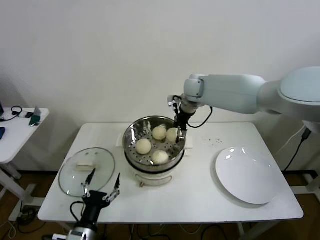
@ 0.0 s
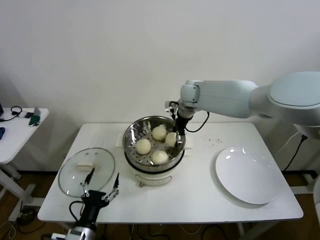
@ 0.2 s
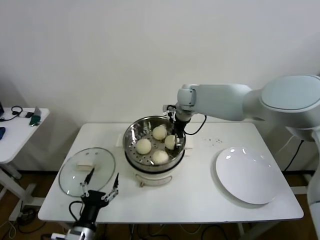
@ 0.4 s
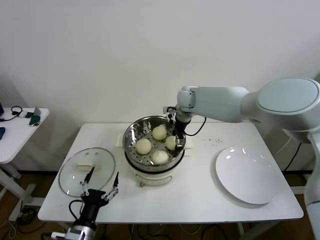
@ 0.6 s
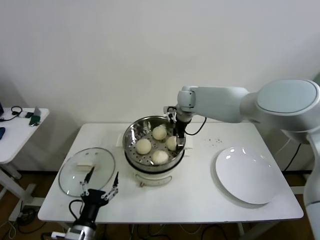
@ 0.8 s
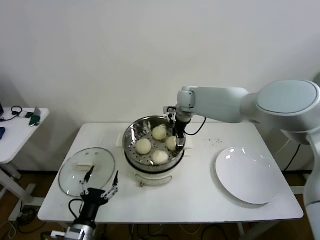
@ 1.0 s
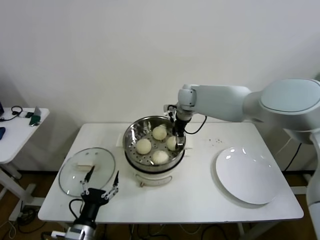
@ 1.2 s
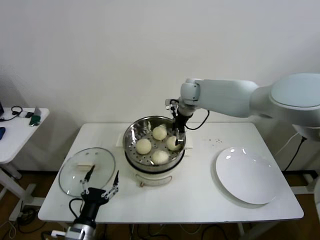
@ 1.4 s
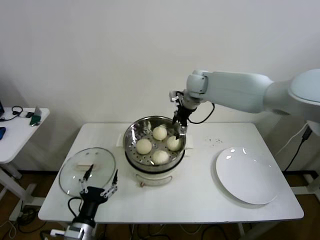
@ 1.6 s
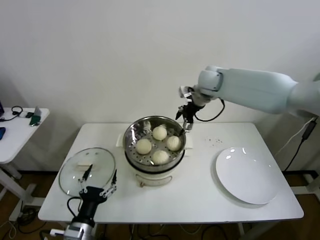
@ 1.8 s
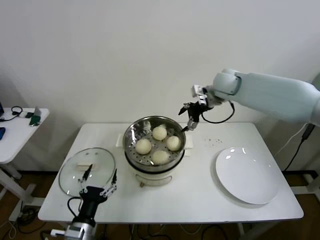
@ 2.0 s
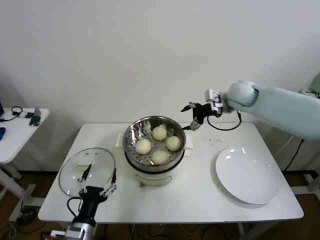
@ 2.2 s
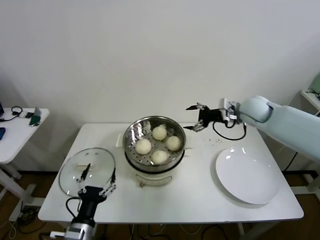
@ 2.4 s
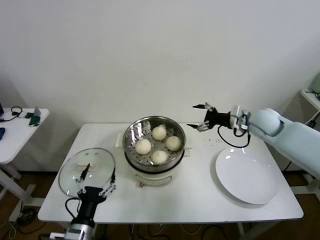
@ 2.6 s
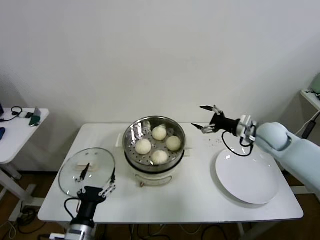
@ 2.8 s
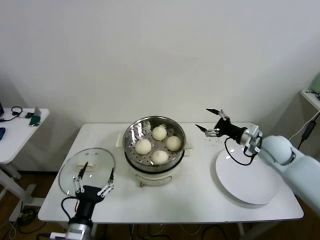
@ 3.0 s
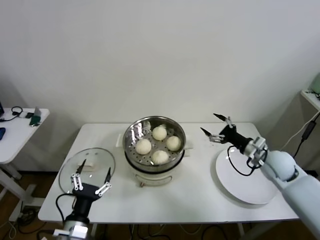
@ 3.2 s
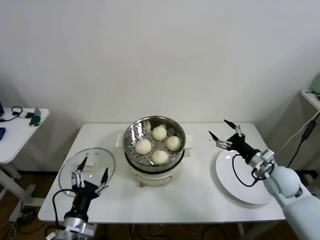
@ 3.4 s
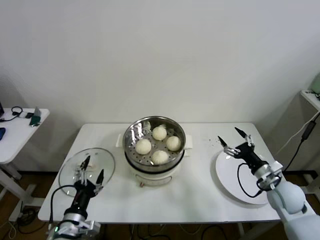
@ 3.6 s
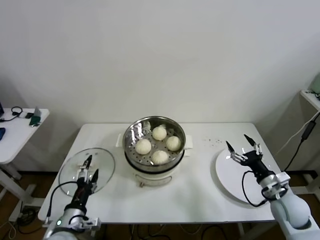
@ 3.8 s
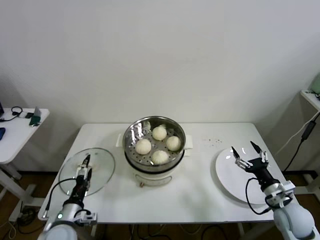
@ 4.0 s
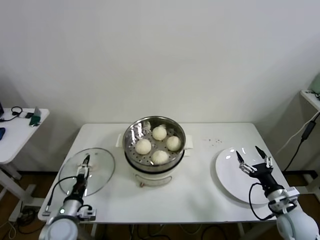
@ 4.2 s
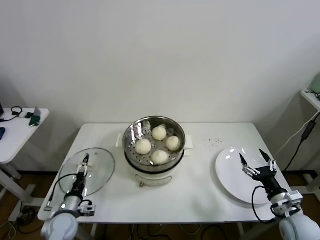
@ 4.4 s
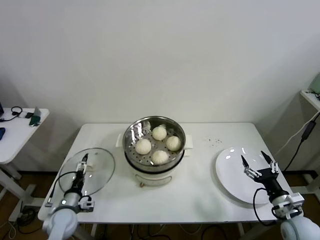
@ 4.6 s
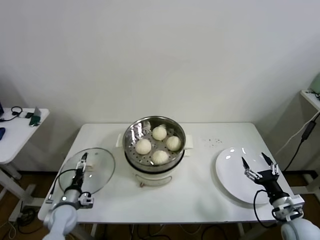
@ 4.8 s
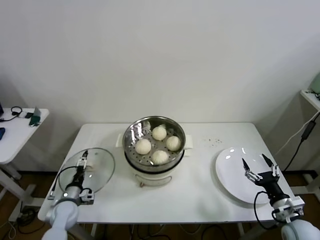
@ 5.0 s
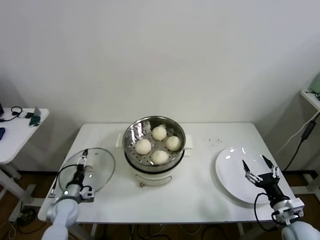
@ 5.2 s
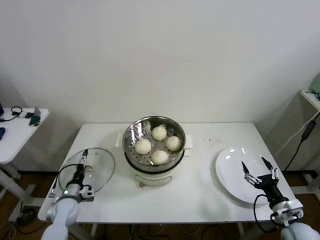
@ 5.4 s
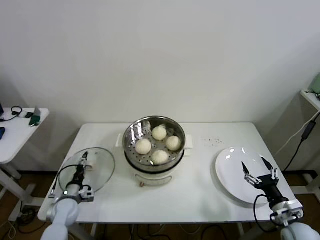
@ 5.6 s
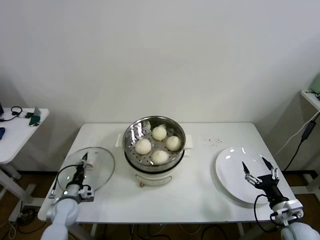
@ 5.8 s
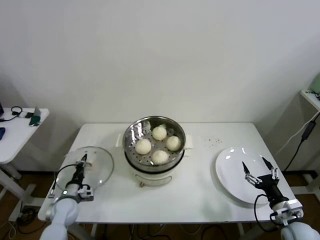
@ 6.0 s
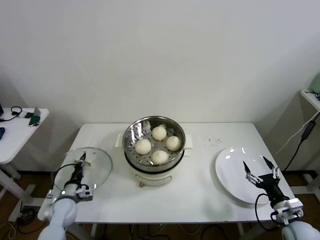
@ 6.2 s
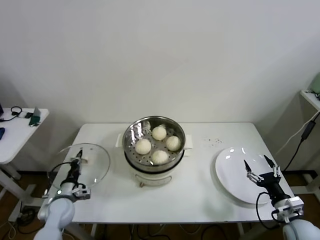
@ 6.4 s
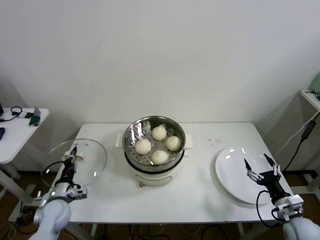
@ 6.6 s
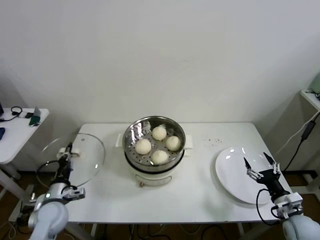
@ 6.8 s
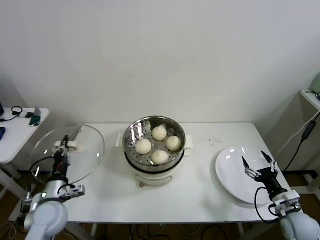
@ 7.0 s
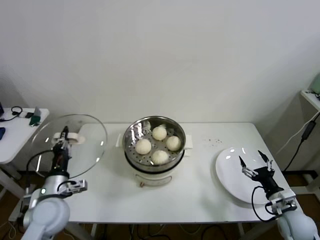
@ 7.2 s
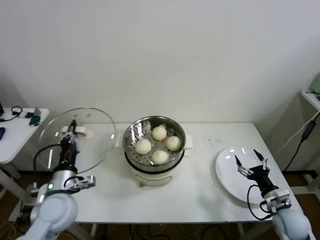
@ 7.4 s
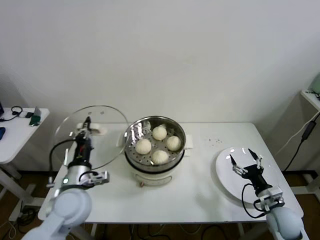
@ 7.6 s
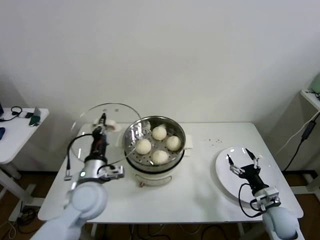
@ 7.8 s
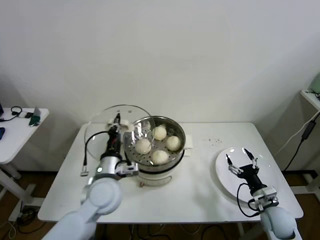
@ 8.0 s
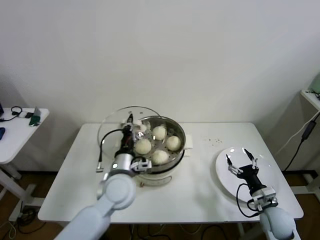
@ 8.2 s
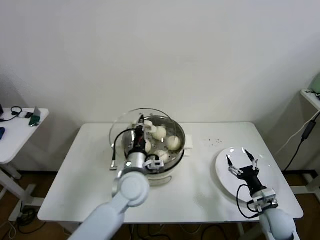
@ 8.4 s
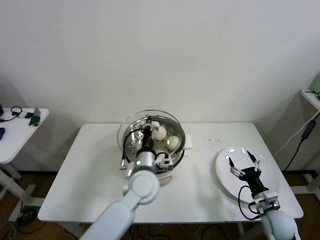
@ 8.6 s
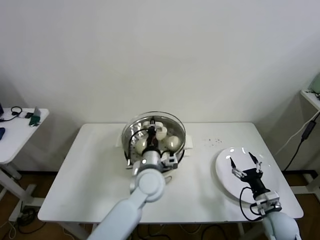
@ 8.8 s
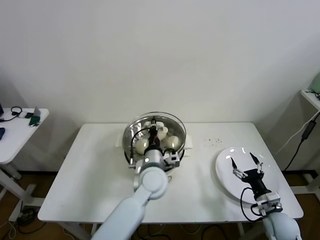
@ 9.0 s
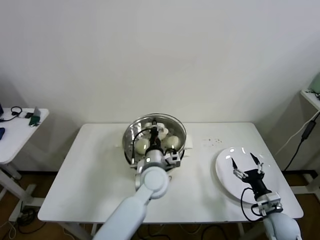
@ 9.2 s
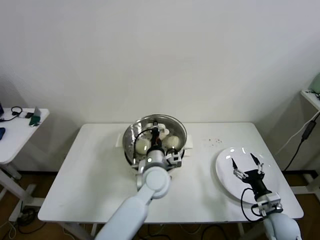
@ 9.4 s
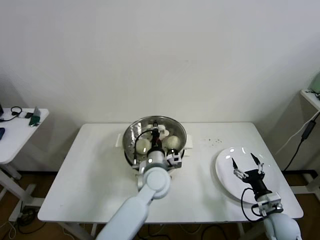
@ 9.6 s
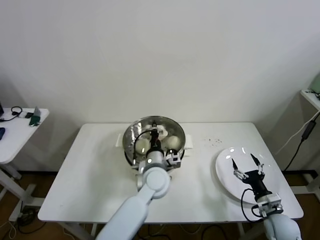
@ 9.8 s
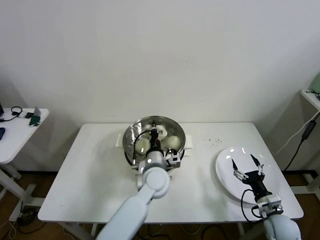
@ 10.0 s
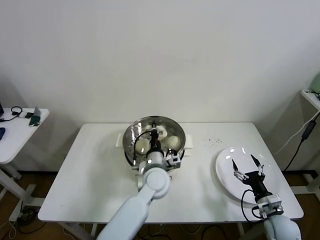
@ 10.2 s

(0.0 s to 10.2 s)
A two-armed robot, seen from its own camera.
Step, 1.0 s - 5.8 s: Grasp the pot lid with left gripper.
0.0 s - 1.4 s: The right gripper opens.
1.4 s - 3.0 s: The right gripper heads to the right, backward and downward, covering approximately 35 cm.
3.0 s - 4.4 s: The right gripper is displaced backward and downward by approximately 25 cm. Meanwhile the left gripper heads forward, to the left and downward, covering some 15 cm.
4.4 s - 5.8 s: The left gripper heads forward, covering roughly 5 cm, and closes its fingers.
5.8 s - 7.2 s: The left gripper moves upward, roughly 15 cm, and closes.
7.2 s - 8.8 s: The right gripper ends up some 5 cm from where it was. The left gripper moves to the right, about 30 cm.
8.8 s - 10.2 s: The grippers stay close to where they were, moving slightly.

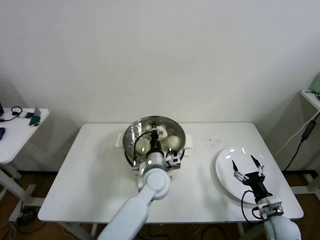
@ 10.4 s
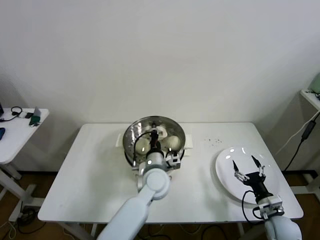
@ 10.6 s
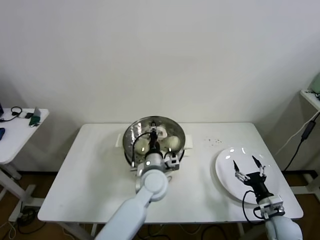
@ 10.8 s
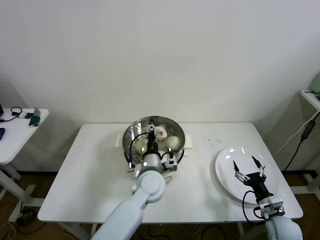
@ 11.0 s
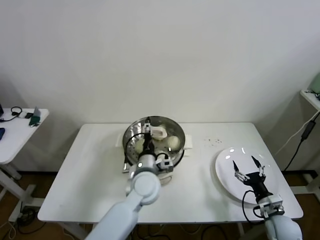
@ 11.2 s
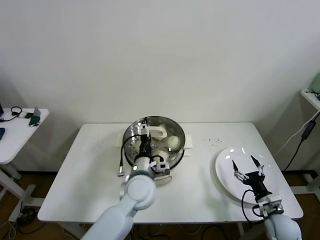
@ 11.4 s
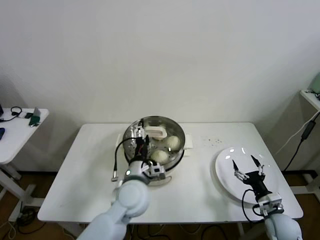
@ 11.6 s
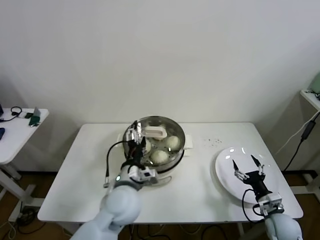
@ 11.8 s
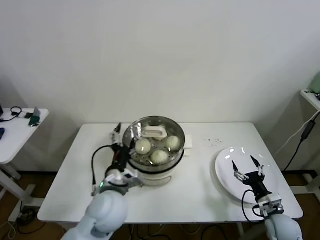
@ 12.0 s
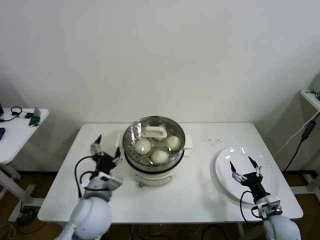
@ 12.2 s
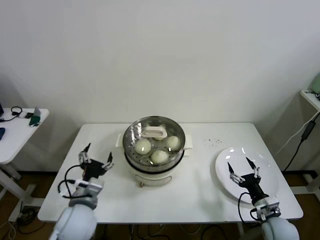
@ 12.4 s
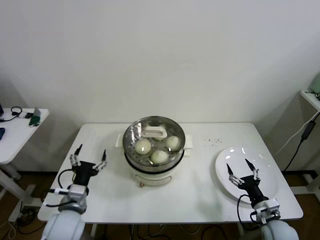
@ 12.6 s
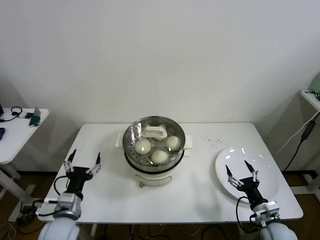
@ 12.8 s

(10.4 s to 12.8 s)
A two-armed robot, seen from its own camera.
10.4 s - 11.6 s: The left gripper travels to the left and backward by about 10 cm, and opens its fingers.
11.6 s - 12.8 s: The left gripper travels to the left and backward by some 25 cm.

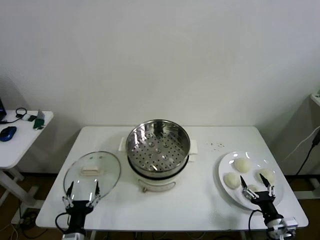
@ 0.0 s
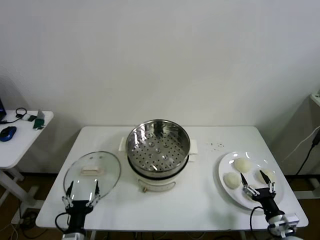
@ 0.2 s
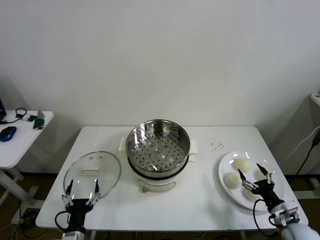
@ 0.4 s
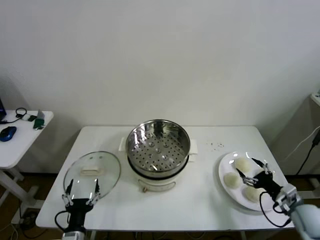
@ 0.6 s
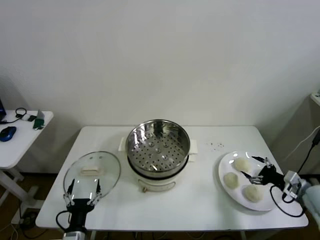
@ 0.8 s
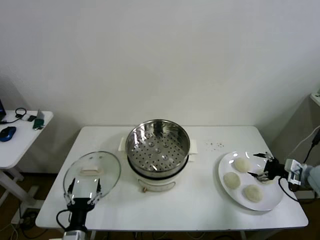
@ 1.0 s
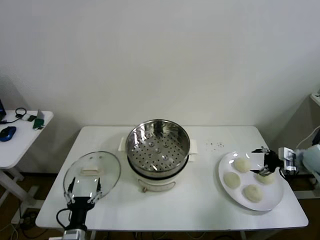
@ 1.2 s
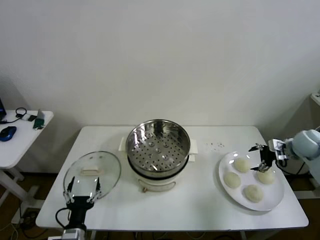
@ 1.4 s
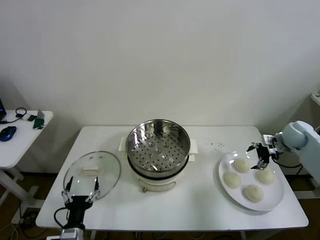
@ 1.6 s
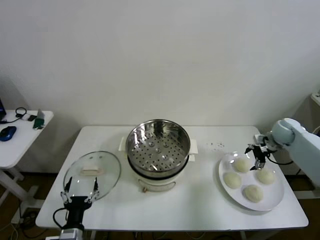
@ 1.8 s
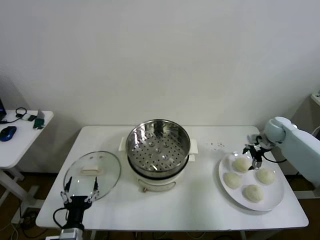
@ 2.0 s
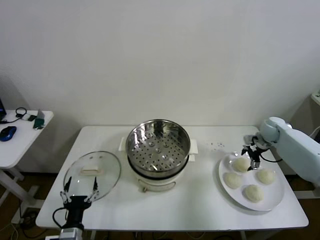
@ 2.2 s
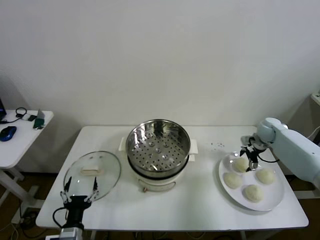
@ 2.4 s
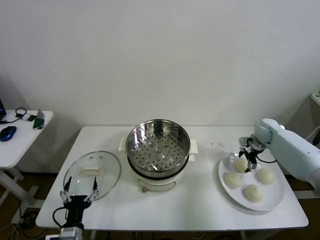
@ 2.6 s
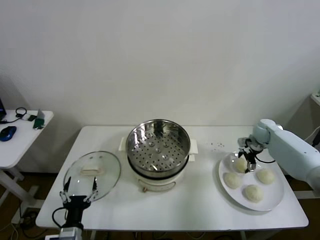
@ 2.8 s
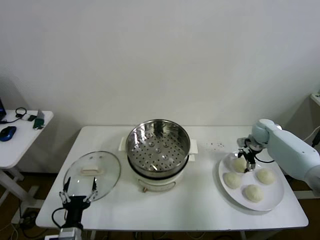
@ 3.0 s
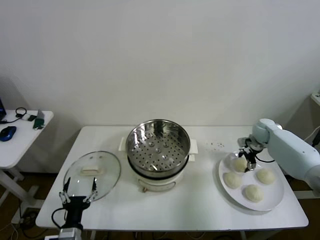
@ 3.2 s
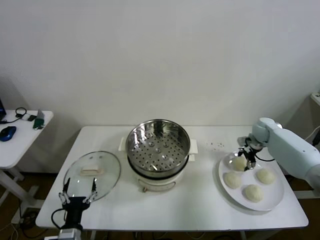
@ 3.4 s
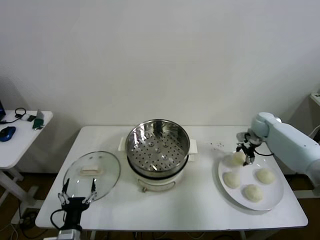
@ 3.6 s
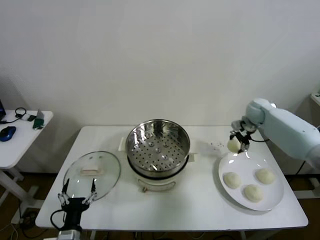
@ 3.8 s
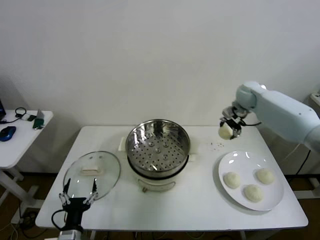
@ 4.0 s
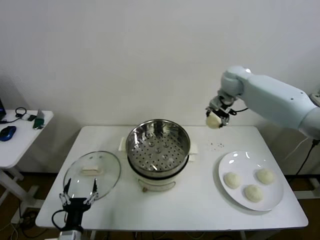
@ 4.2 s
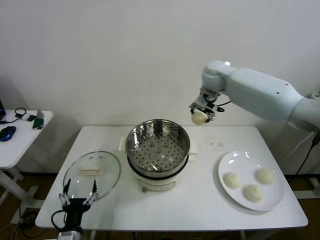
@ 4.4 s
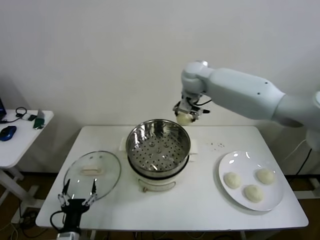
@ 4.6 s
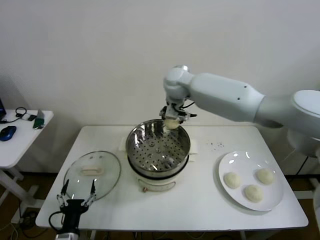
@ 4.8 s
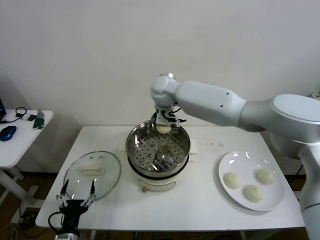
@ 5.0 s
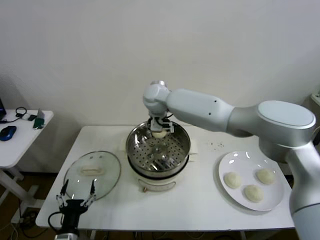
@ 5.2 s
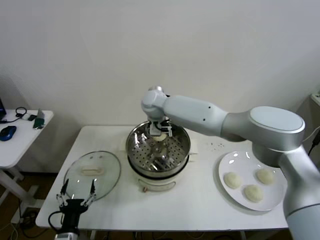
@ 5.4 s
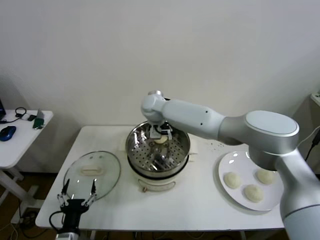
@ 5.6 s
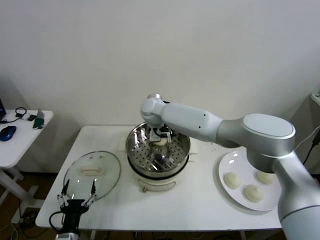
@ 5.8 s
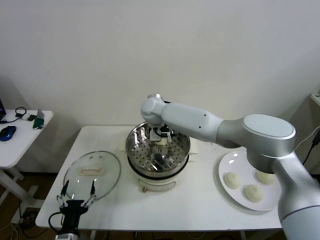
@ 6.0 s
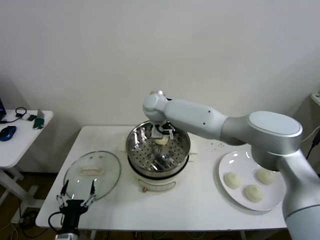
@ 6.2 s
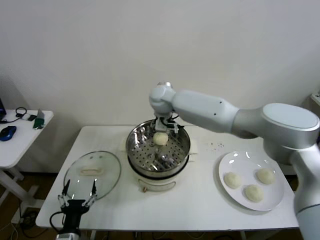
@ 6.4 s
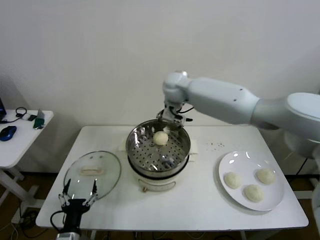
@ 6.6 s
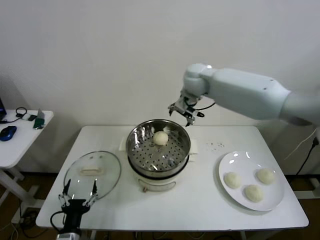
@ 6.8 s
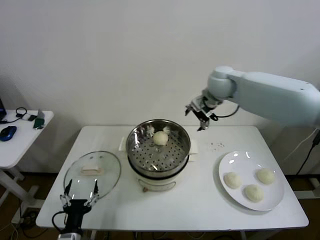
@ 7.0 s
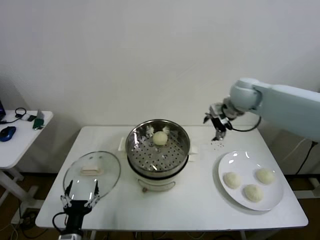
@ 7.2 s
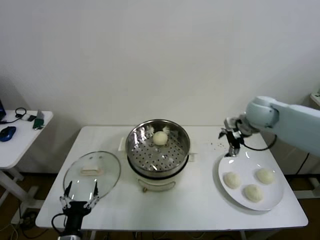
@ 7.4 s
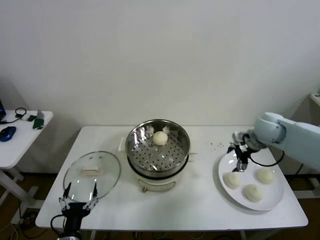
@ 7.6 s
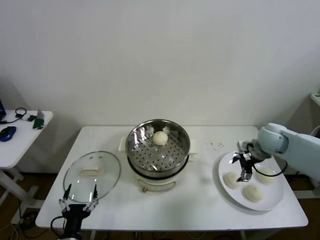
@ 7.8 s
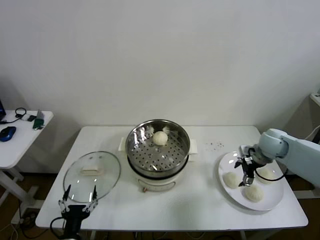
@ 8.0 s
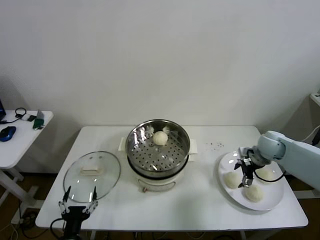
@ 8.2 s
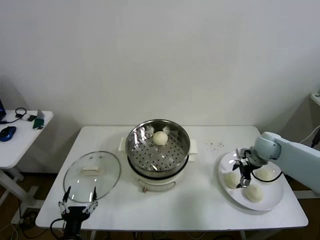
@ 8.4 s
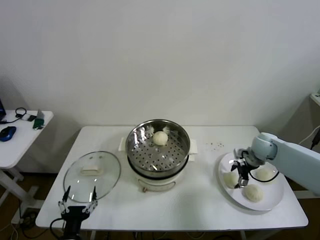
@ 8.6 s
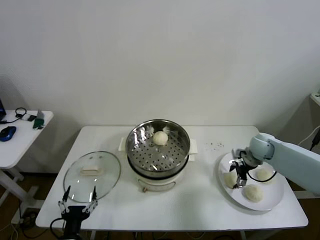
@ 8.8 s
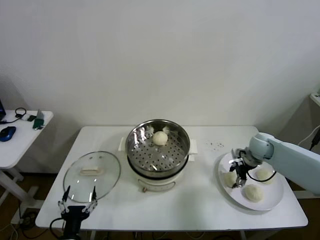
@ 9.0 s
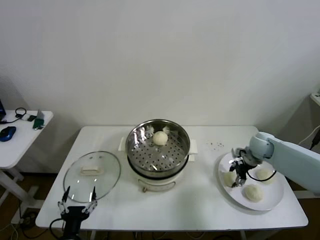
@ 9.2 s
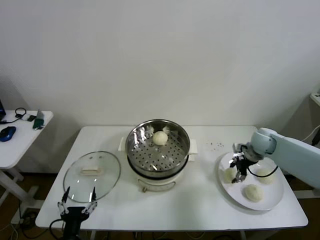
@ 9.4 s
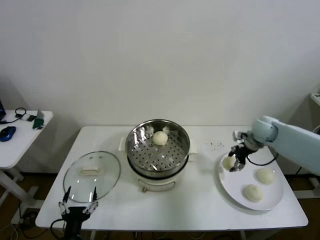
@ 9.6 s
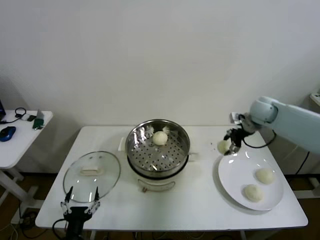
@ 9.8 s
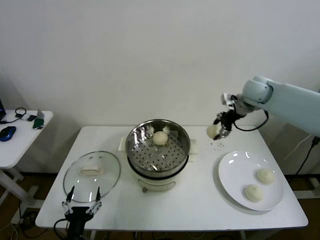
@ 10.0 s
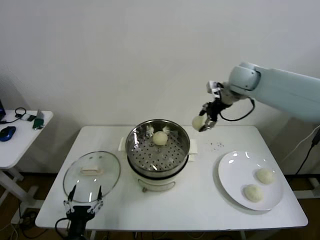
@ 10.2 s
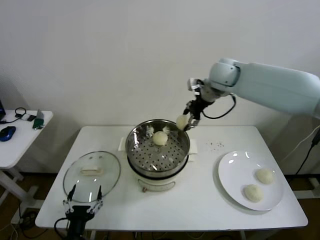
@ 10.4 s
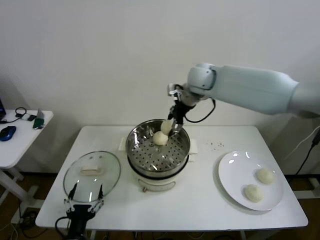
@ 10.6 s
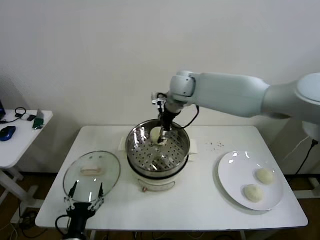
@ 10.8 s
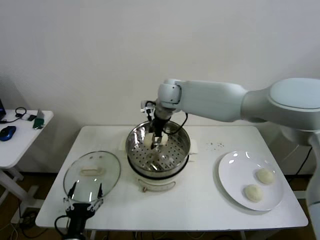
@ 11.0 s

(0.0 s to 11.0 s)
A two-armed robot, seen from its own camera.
Step, 0.0 s - 3.0 s: Grasp the baozi in the plate with right gripper.
Step, 3.2 s - 5.8 s: Place the baozi on the steamer with right gripper.
Step, 6.0 s - 9.2 s: Grasp the baozi in the plate with right gripper.
1.6 s - 3.2 s: The right gripper heads forward and to the left, covering approximately 10 cm, and closes up.
3.2 s - 4.8 s: The right gripper heads to the left and upward, covering roughly 50 cm.
4.8 s - 6.2 s: The right gripper goes approximately 5 cm downward, and opens.
6.2 s - 7.8 s: The right gripper shifts some 40 cm to the right.
7.8 s - 9.4 s: The right gripper changes place by some 5 cm, and closes.
9.4 s - 11.0 s: The right gripper moves to the left and upward, some 40 cm.
